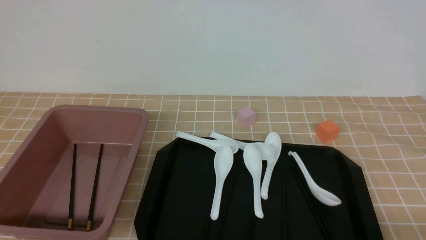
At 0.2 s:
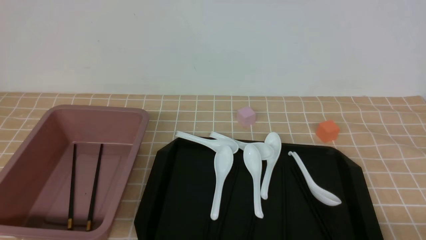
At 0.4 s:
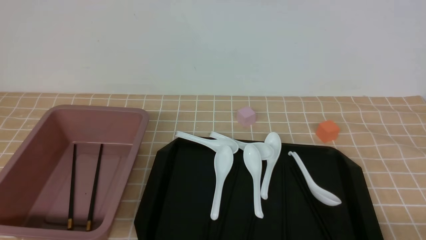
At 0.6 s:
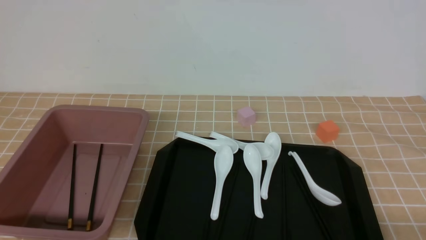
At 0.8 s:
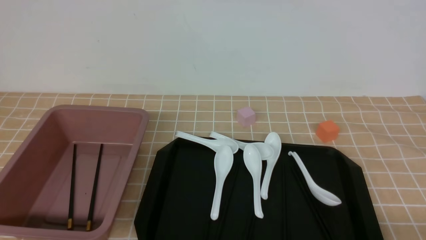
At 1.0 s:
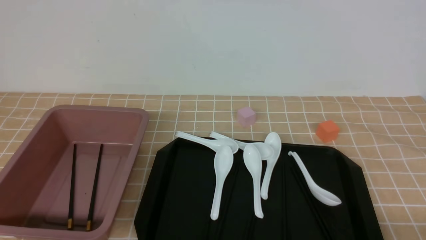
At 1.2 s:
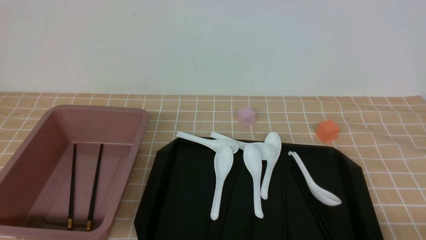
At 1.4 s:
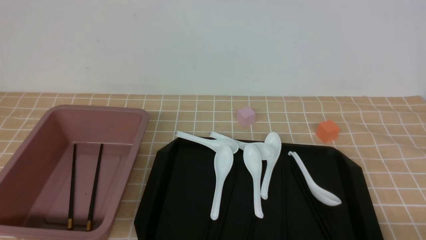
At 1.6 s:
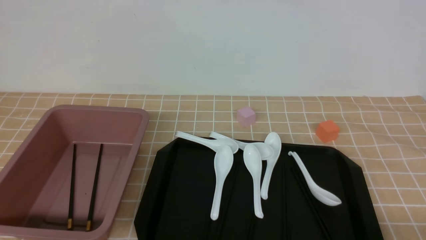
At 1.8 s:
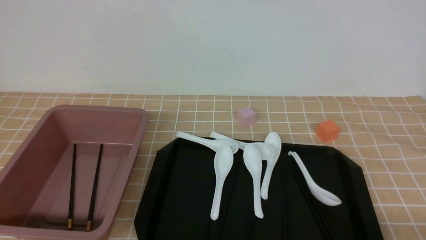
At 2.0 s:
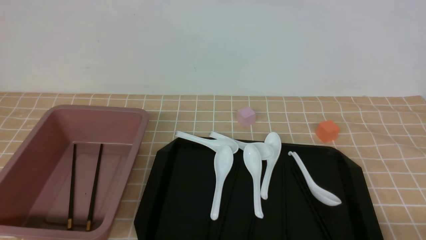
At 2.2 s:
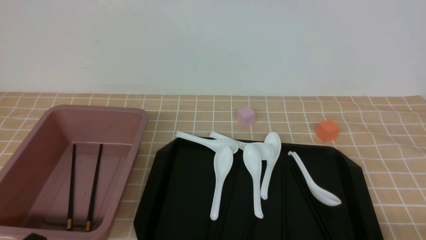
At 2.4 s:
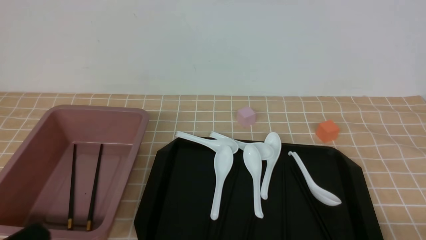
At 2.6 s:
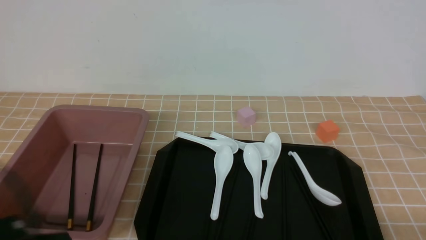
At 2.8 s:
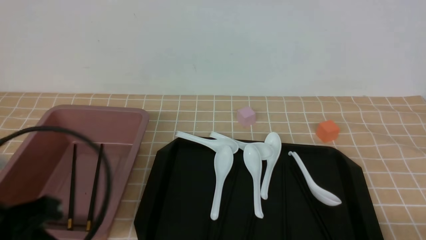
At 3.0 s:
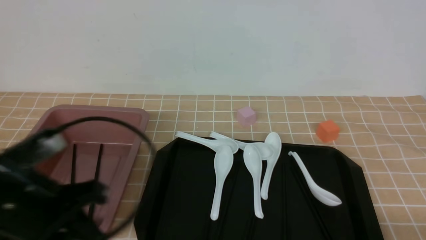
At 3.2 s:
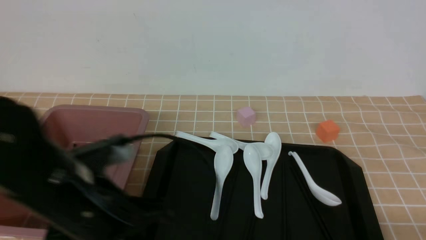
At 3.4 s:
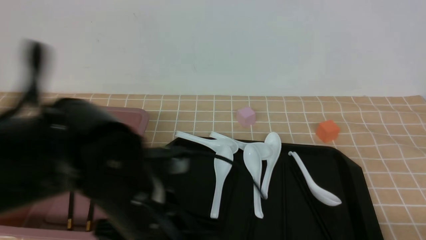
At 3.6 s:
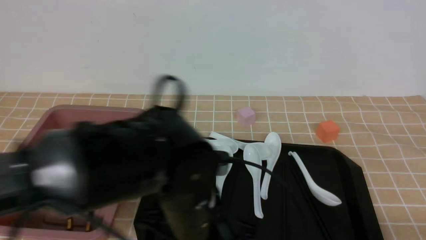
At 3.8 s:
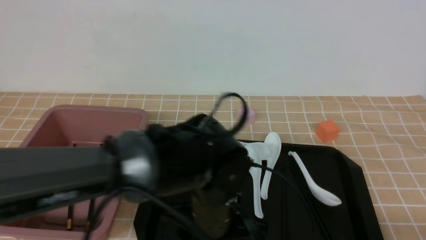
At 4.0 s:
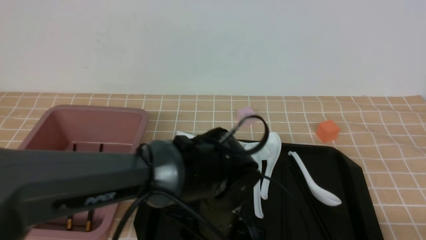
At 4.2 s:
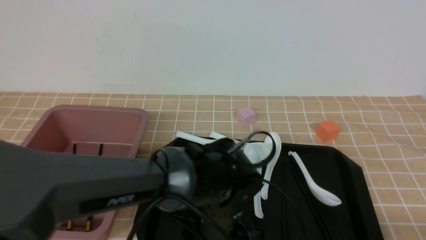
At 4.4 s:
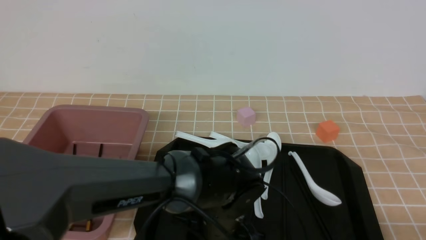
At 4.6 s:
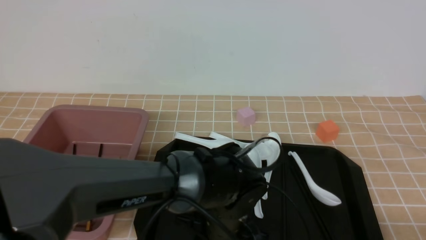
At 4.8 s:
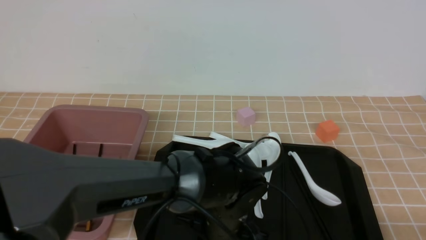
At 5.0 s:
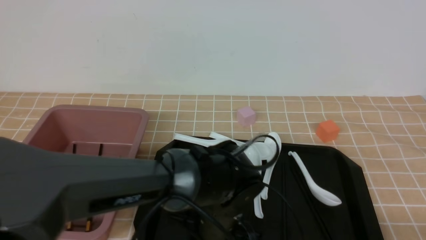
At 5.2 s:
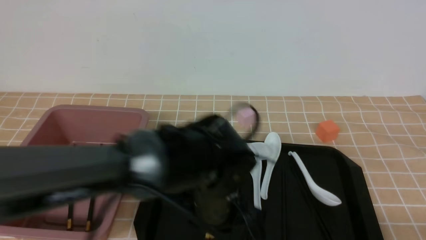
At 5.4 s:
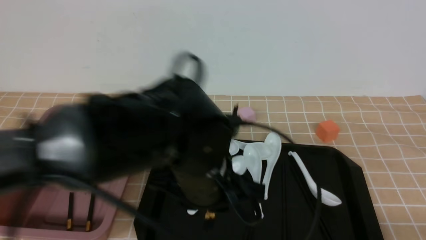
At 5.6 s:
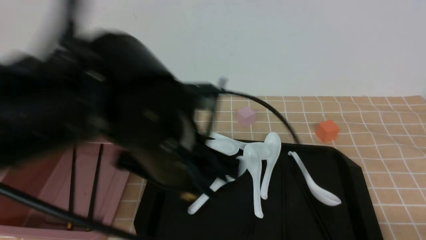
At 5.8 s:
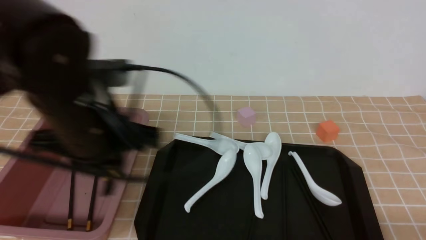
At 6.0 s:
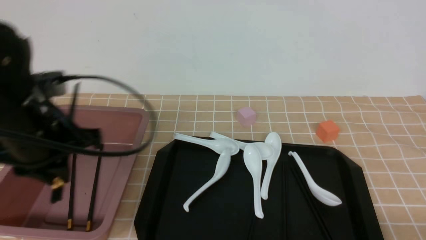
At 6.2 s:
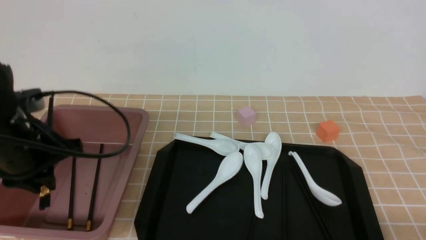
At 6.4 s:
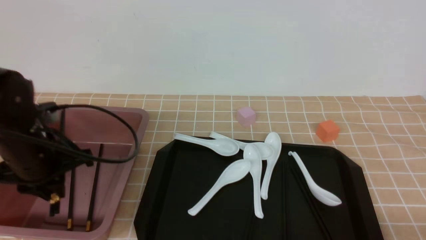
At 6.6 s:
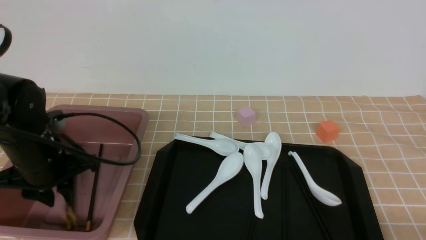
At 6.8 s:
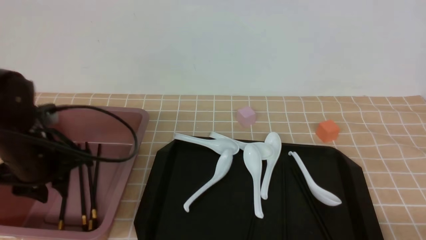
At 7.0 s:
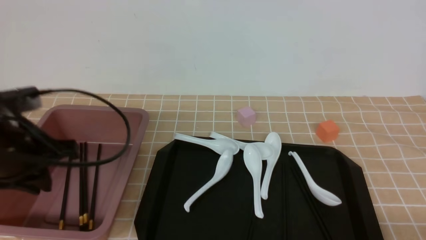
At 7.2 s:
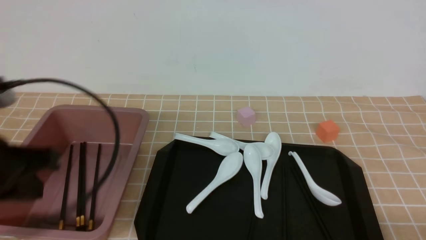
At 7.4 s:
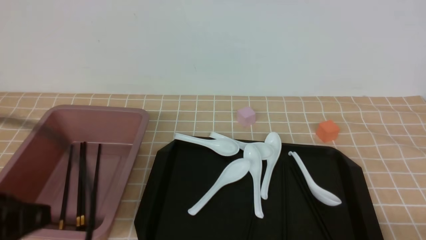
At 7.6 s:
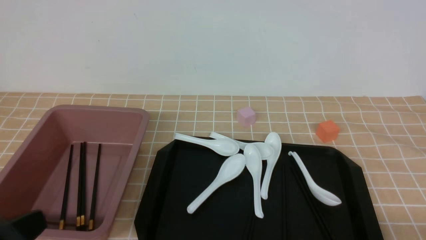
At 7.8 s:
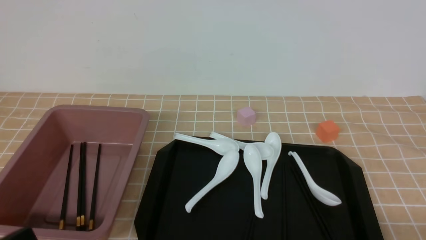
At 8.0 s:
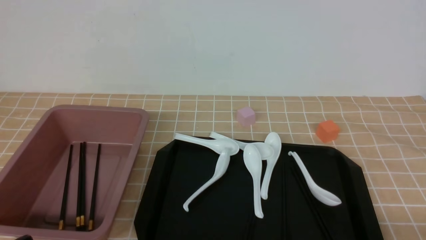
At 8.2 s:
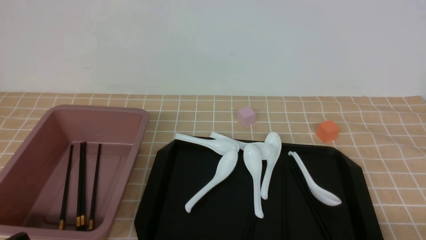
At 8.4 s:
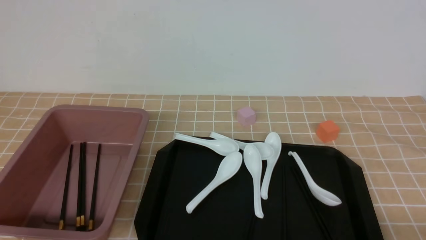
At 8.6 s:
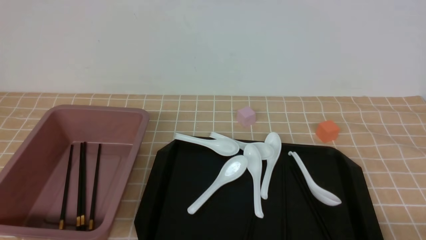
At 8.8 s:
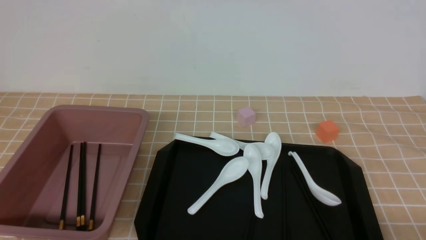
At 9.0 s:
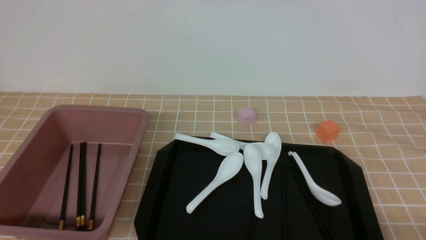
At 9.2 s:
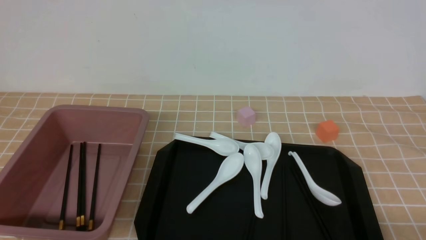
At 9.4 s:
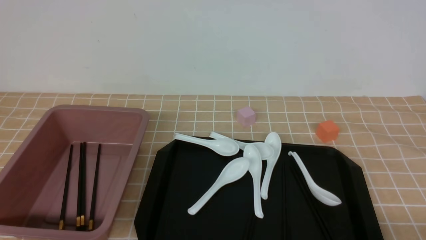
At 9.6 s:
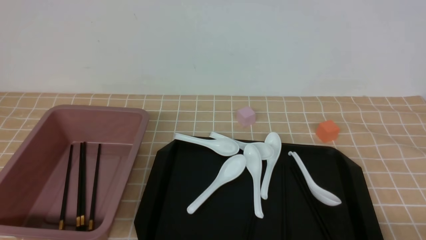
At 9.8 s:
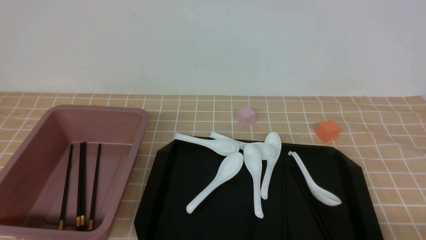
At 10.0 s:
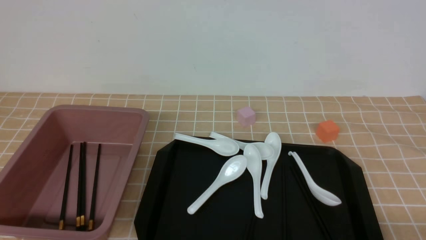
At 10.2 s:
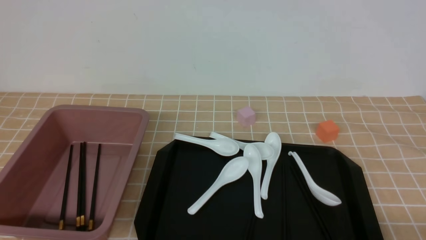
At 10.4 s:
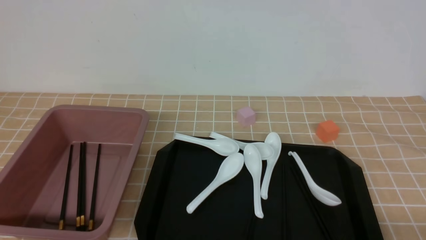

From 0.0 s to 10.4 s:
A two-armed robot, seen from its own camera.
Step, from 0.0 s to 5.2 s: use the left arm to grab a pair of chopsticks.
Step, from 5.6 s to 6.8 s: use the left arm to put the chopsticks into the lunch box.
From 0.0 s to 1.4 s: The two grippers keep their place.
From 1.4 s to 3.0 s: The left gripper is displaced forward, upward and to the right by approximately 20 cm.
From 3.0 s to 4.4 s: The left gripper travels to the right and downward by about 25 cm, and opens.
From 4.4 s to 6.0 s: The left gripper is displaced to the left and upward by some 25 cm, and closes up.
From 6.0 s to 7.4 s: The left gripper travels backward by approximately 15 cm.
From 7.4 s to 9.0 s: The left gripper travels downward and backward by about 15 cm.
From 9.0 s to 10.4 s: Both grippers stay about where they are.
